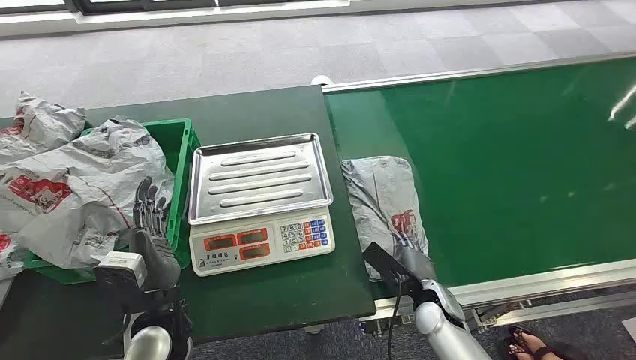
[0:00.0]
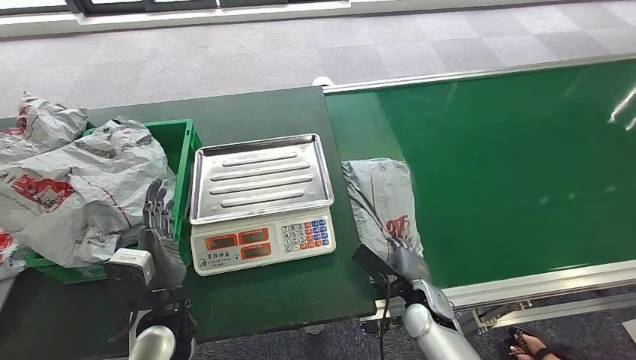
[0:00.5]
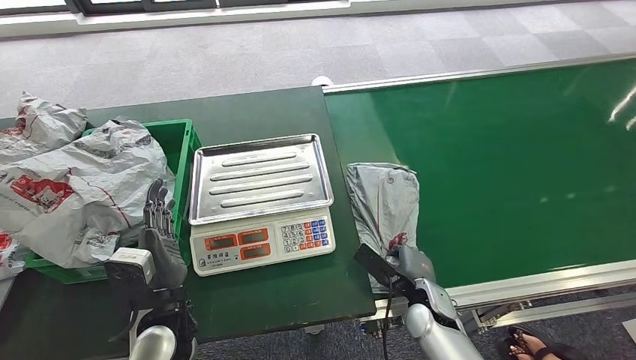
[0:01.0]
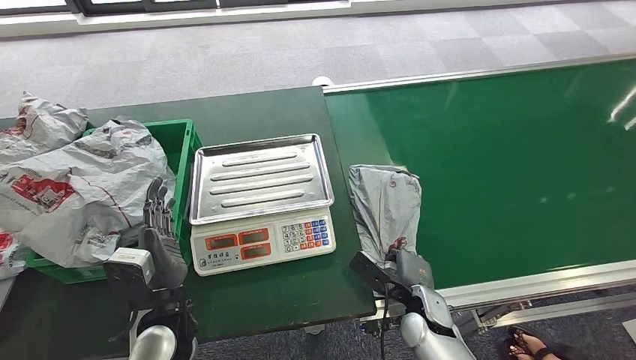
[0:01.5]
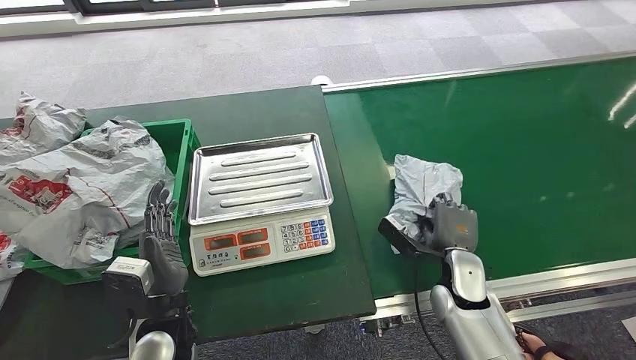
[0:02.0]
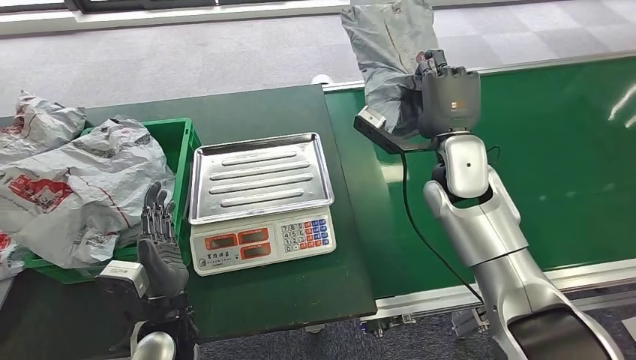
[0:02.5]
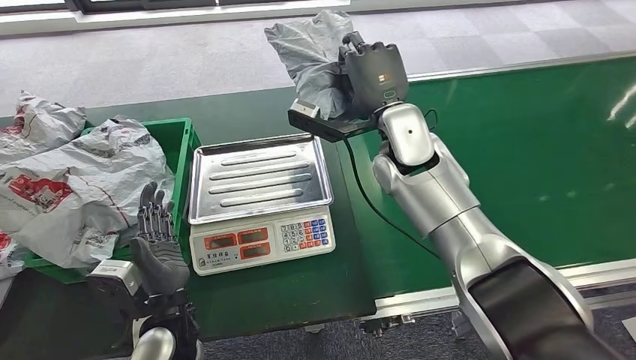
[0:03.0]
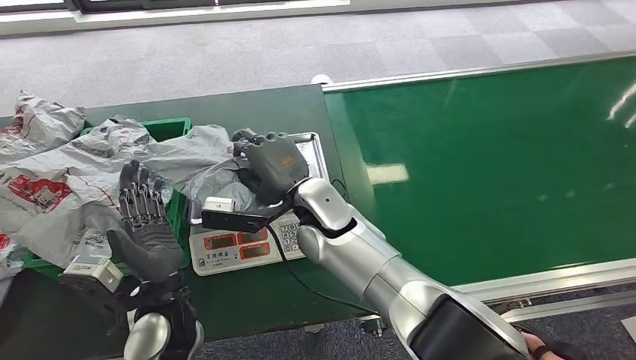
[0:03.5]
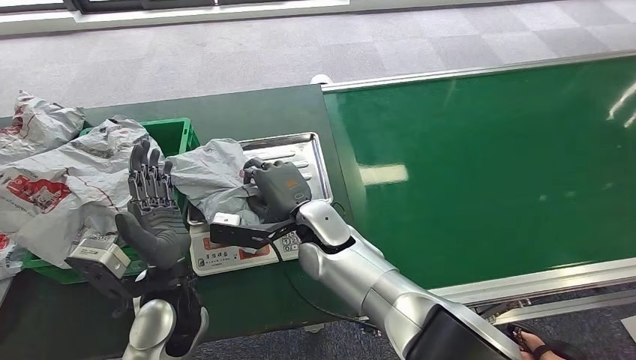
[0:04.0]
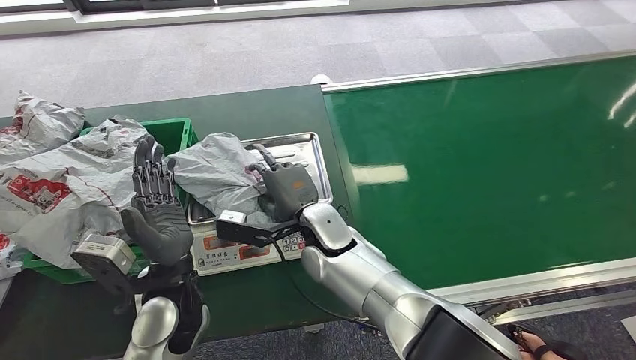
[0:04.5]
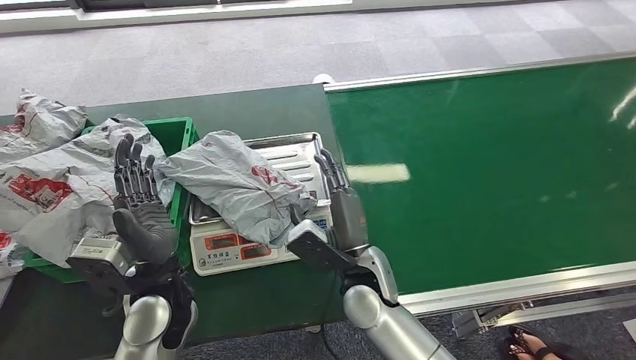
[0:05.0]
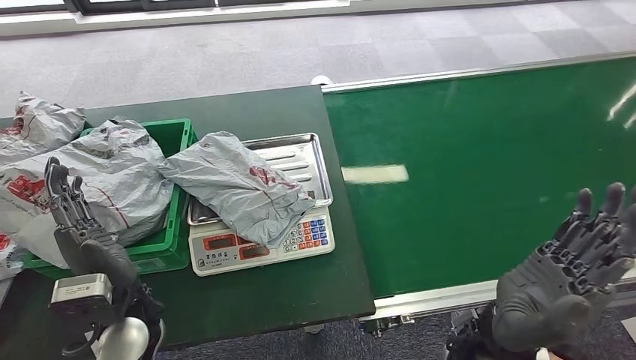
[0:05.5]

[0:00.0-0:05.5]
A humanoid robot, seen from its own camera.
Step, 0:00.0 to 0:02.5: Pick up the package from the conveyor belt.
Step, 0:03.0 to 0:05.5: Place the package onto the inbound machine.
